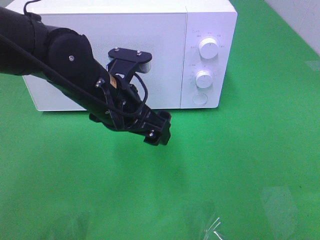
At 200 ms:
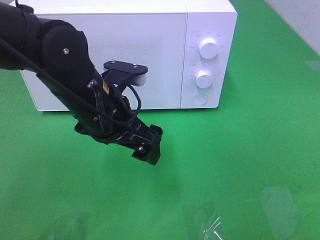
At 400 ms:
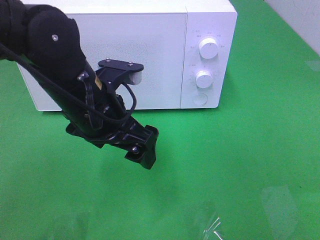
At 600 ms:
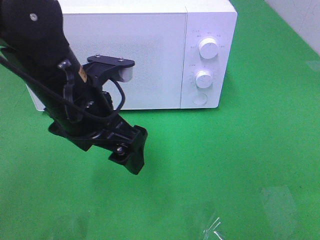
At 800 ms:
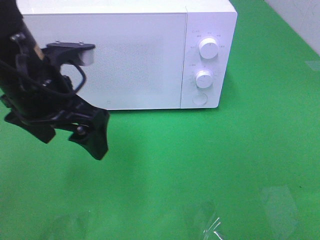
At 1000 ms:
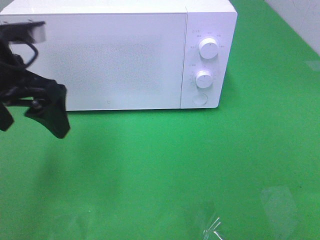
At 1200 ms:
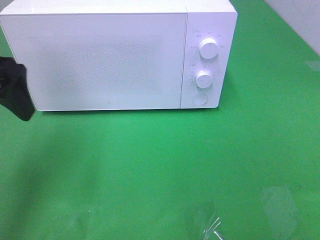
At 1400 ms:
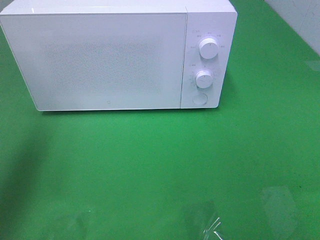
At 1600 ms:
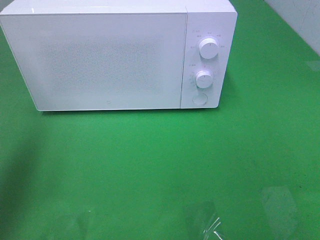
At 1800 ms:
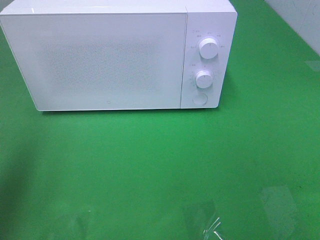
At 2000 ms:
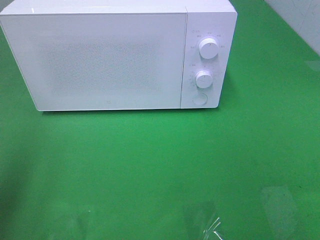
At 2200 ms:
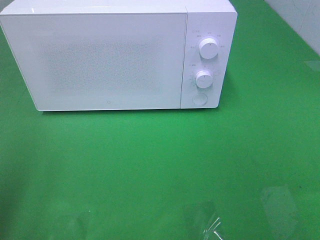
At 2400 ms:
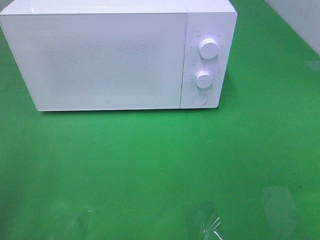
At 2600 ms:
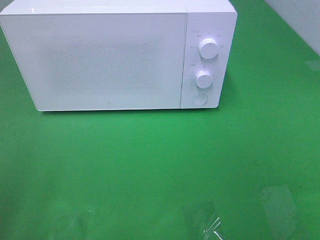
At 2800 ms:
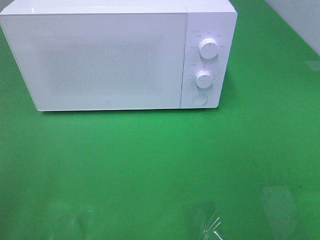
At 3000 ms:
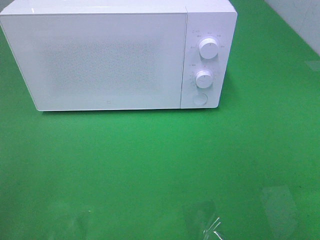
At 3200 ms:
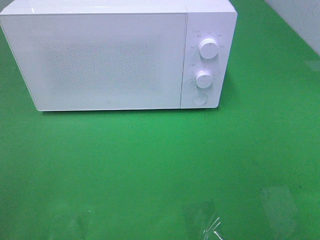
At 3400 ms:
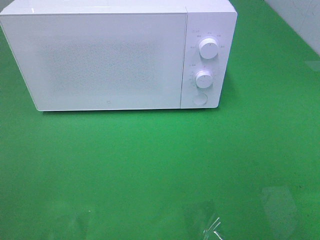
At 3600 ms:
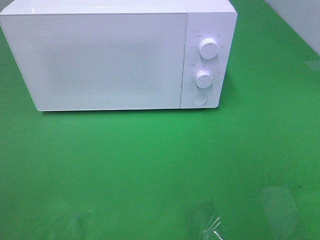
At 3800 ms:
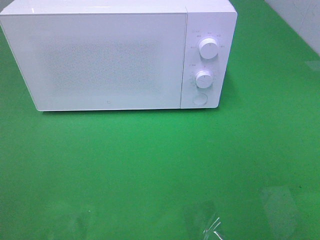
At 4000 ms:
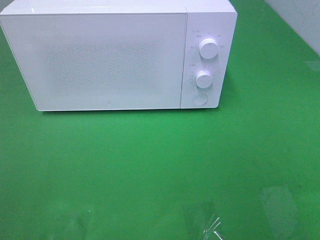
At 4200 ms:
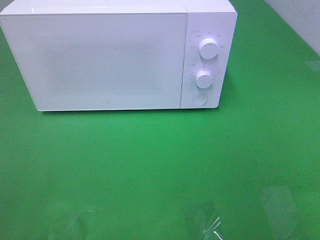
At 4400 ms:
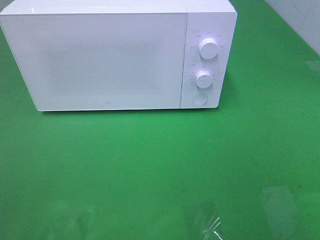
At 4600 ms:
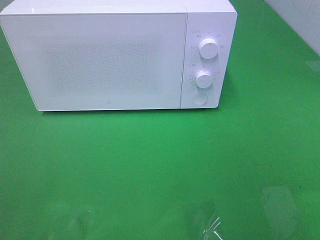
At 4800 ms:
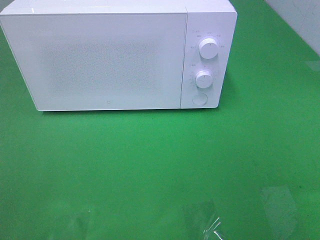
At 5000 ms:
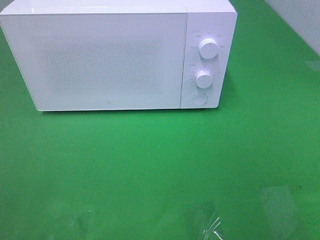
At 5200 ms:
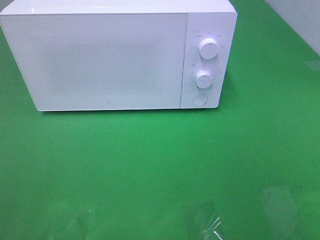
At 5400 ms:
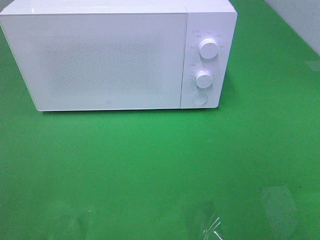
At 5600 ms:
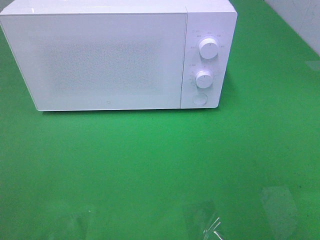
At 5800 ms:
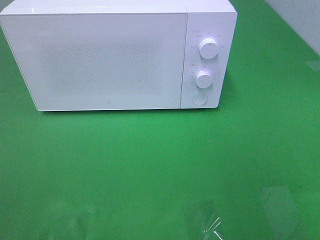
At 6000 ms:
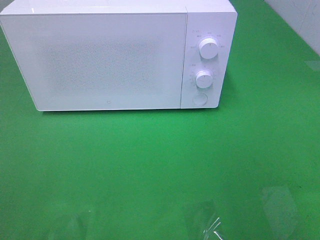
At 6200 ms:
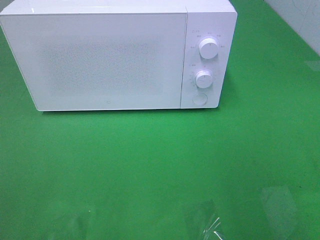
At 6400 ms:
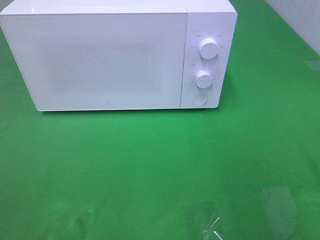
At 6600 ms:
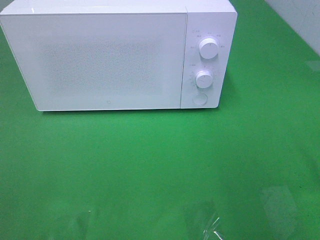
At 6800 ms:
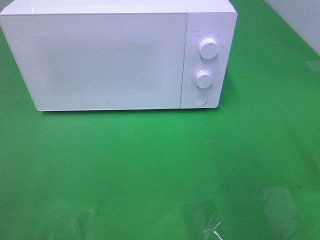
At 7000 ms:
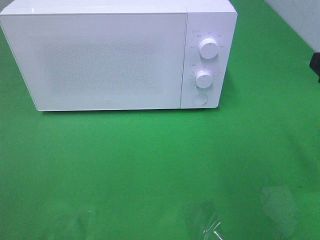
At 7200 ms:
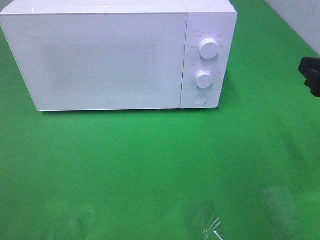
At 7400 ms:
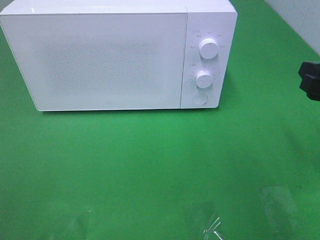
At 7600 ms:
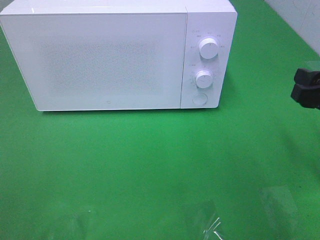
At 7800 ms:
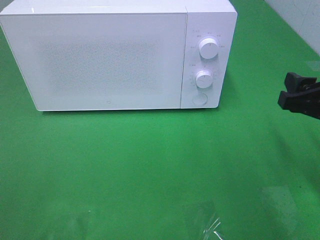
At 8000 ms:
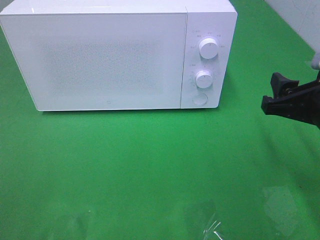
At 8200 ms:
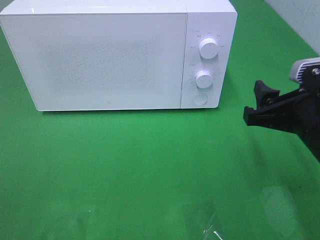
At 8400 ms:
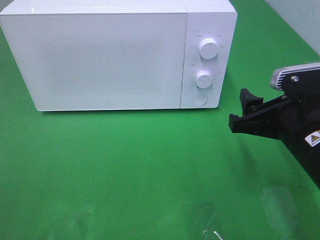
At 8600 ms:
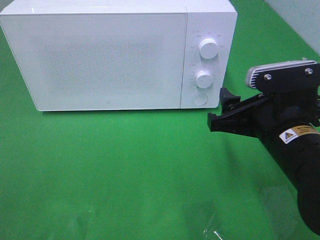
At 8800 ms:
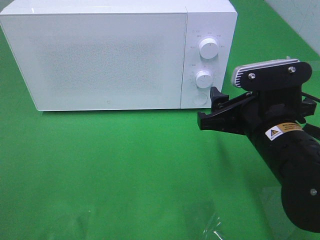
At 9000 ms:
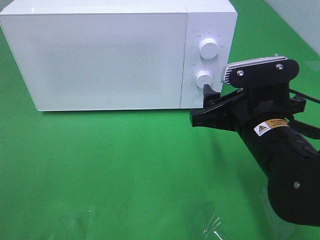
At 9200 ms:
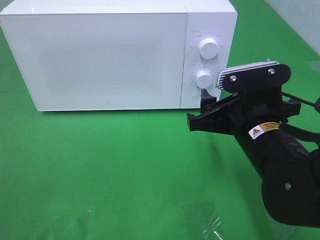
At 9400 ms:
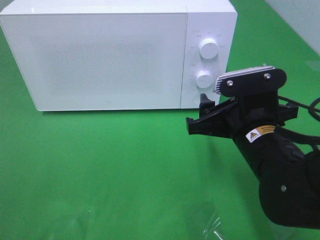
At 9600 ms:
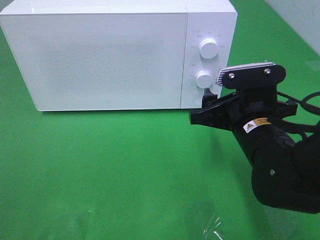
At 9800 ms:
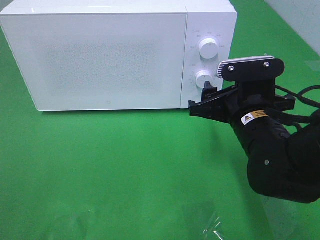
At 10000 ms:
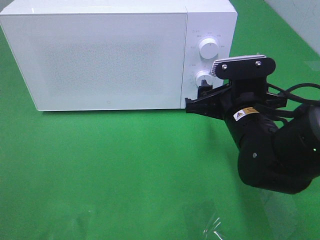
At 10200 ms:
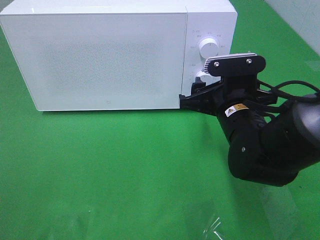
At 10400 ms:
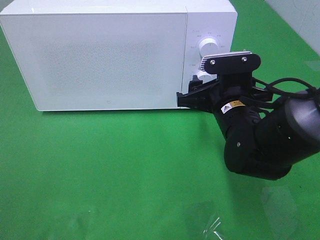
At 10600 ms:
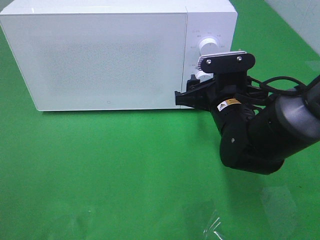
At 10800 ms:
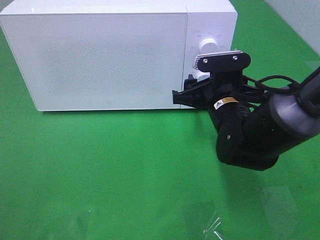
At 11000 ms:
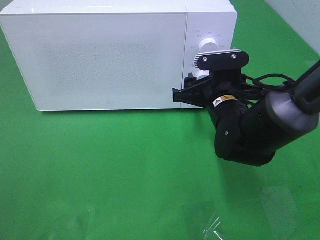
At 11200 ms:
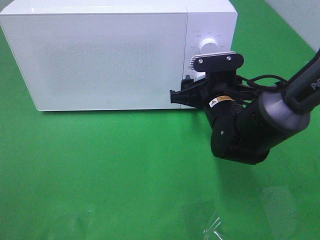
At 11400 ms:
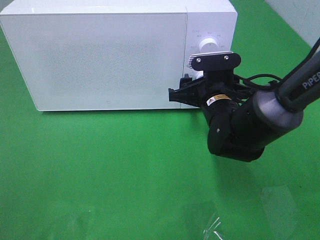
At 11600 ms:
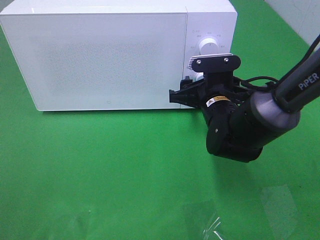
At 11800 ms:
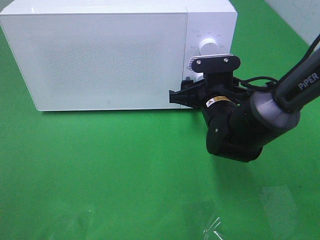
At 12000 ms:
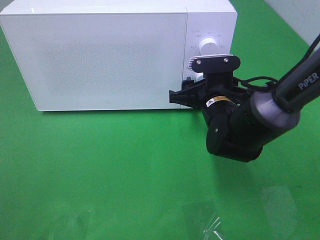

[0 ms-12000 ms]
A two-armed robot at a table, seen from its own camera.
Task of the whole recording: Heat the burger.
0 ms to 1600 ms: The left gripper is displaced to the left and upward by some 30 cm.
1600 ms to 3000 ms: The left gripper goes some 20 cm backward.
6000 ms to 7600 ms: The right gripper heads forward and downward, covering about 15 cm.
7600 ms to 9000 ms: The right gripper moves to the left, about 15 cm.
9000 ms to 10400 ms: The right gripper shifts about 5 cm forward.
10400 ms to 12000 ms: The right gripper changes place by approximately 5 cm.

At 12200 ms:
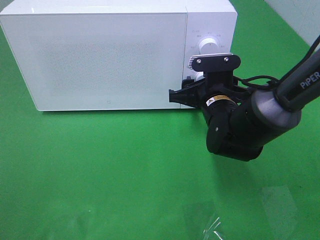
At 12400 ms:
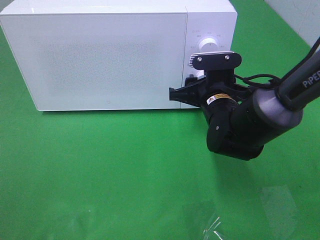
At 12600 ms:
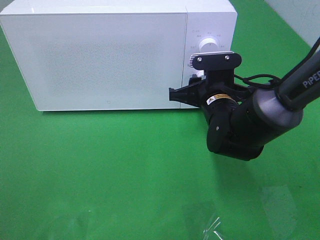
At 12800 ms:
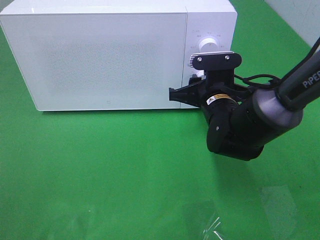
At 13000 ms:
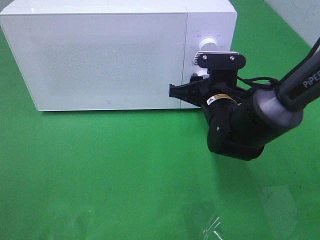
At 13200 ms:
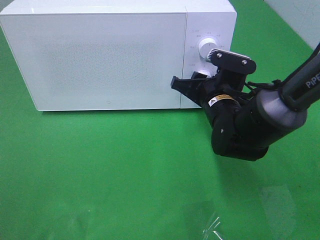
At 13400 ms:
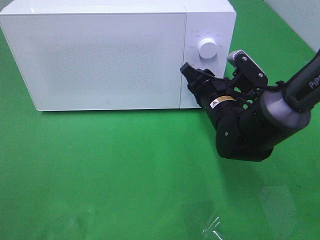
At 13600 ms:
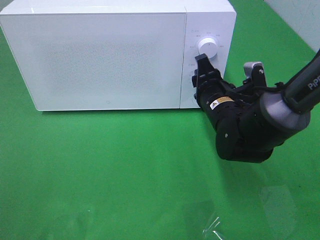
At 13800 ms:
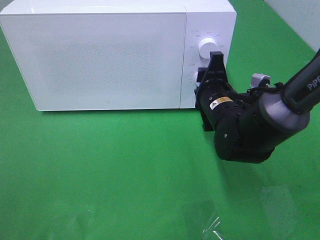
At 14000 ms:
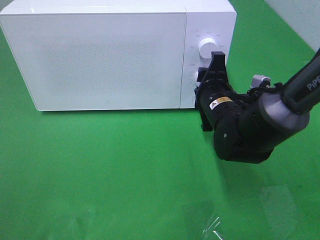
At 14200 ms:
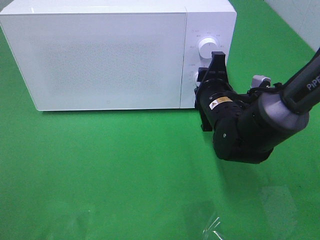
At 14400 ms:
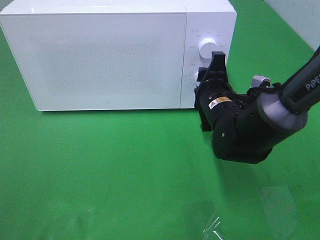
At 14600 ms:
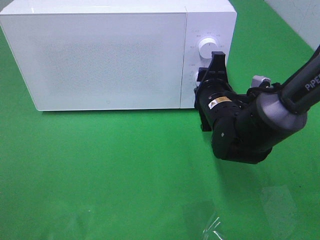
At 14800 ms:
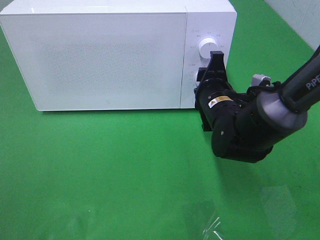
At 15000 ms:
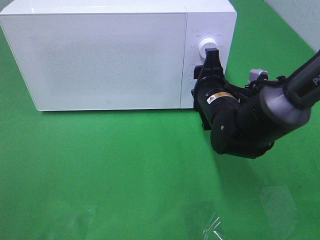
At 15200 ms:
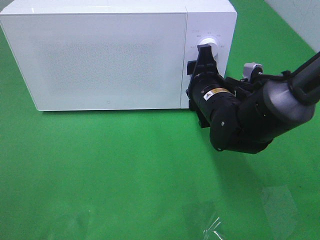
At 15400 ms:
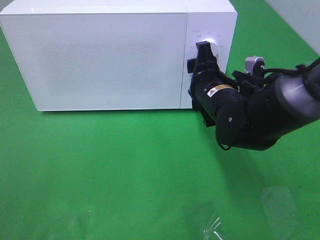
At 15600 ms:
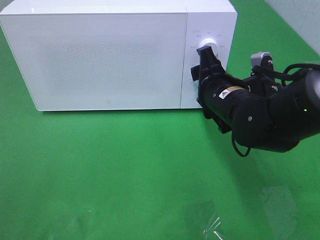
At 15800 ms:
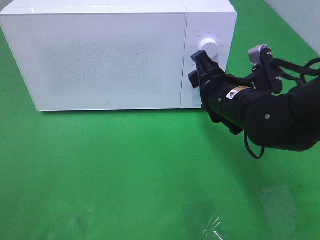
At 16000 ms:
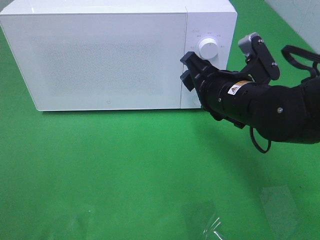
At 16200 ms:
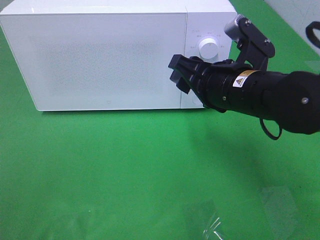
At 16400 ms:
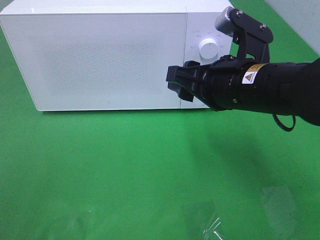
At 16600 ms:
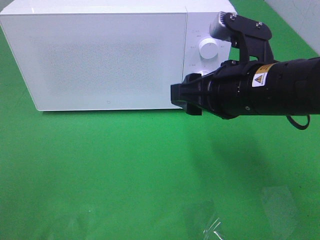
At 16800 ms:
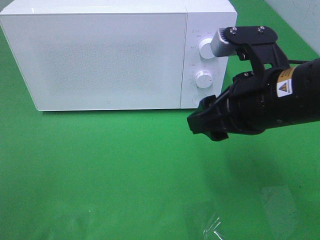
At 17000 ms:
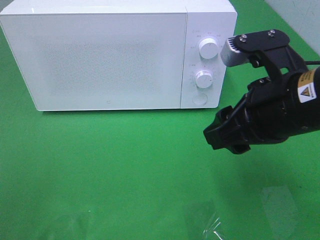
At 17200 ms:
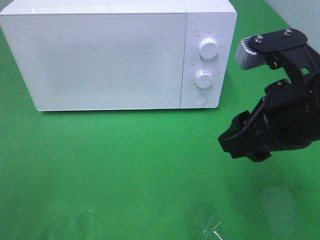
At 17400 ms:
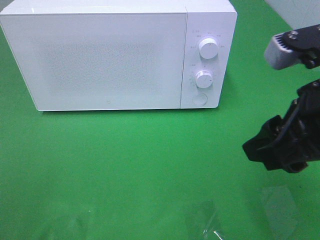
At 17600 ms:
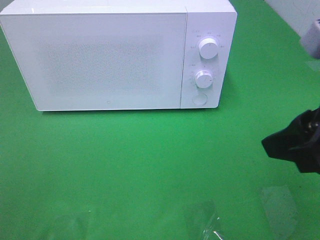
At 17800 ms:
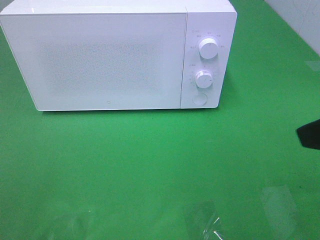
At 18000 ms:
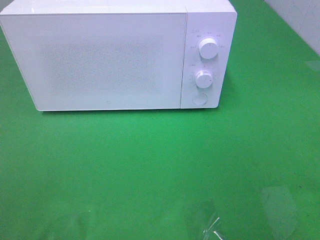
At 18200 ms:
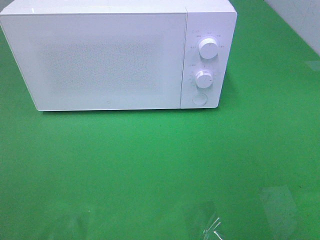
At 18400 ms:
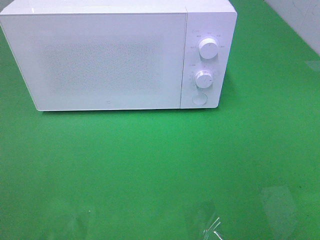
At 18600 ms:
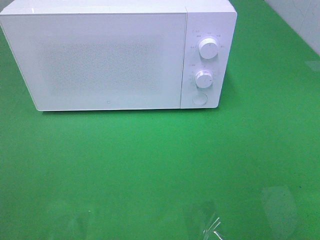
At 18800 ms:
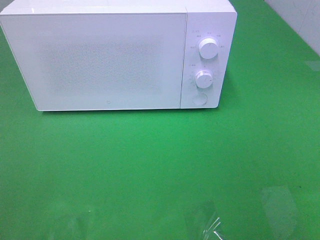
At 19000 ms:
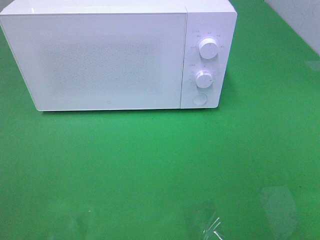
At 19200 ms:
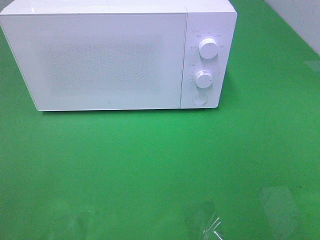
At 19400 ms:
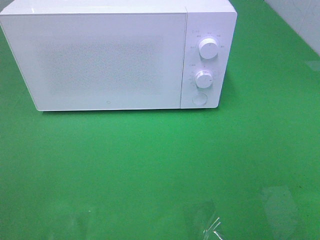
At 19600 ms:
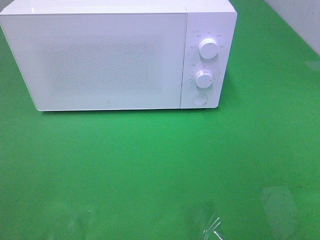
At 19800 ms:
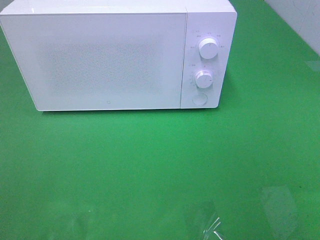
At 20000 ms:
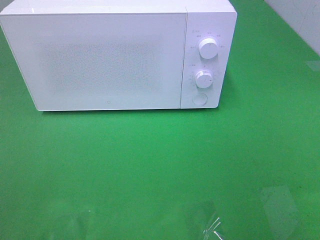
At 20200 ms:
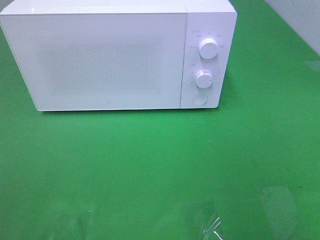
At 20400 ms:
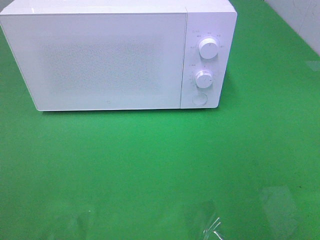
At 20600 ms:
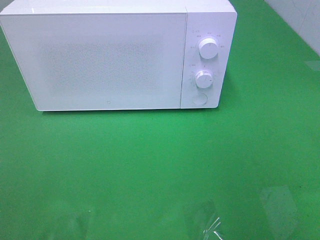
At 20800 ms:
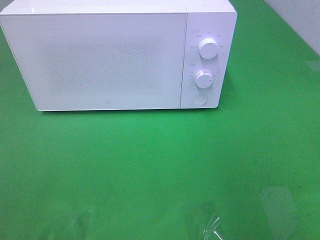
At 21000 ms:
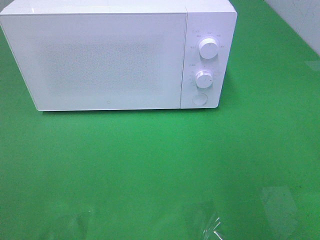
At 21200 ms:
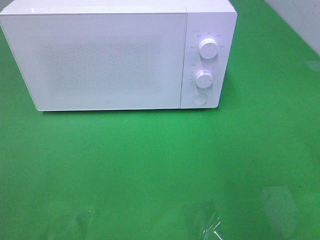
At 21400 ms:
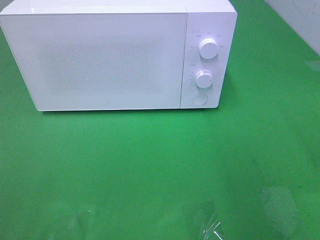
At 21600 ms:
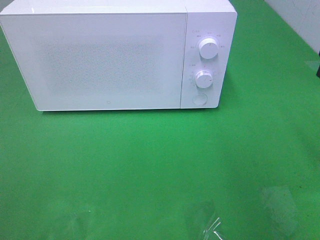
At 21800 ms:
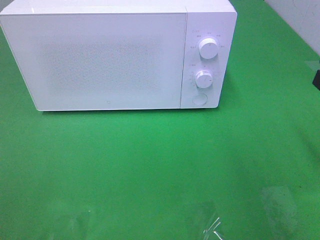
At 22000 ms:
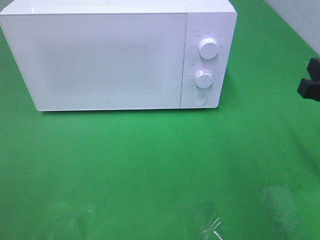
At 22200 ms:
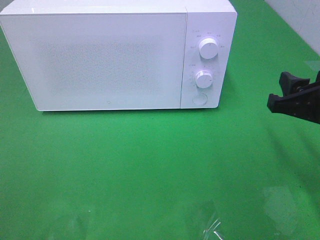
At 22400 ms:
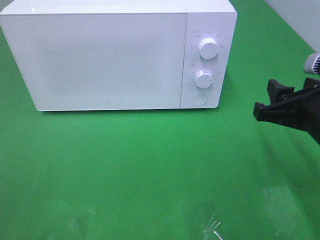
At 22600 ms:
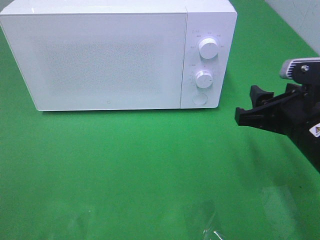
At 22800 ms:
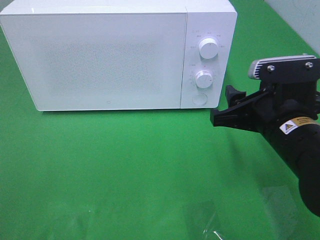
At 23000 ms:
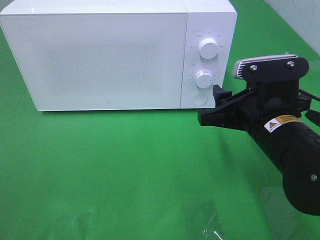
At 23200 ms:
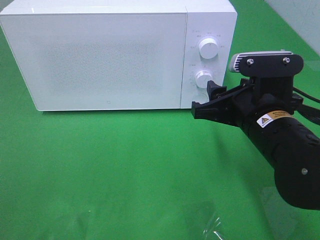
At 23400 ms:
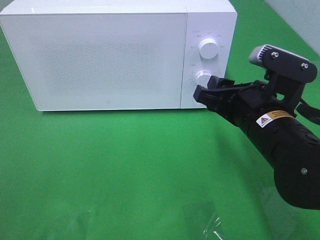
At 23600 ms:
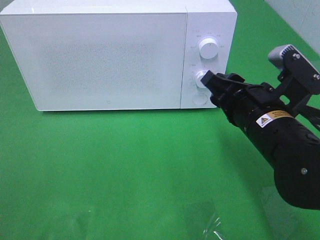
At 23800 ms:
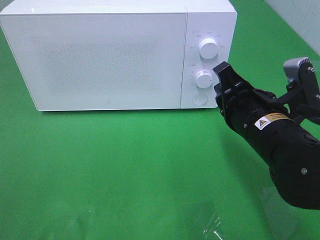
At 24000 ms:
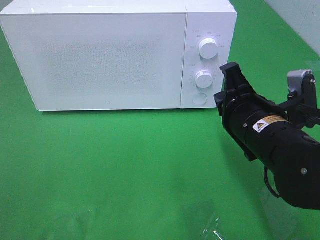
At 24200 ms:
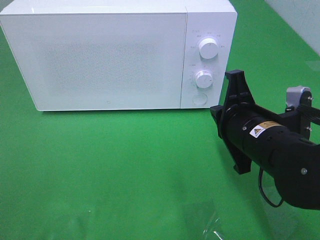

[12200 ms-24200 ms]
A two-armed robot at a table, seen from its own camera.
Task of the whole recording: Heat the burger.
Step, 12200 ms to 15200 ms: Right hand: twist timer button.
13800 ms to 15200 ms: The grippers make only small movements.
15200 ms to 16600 ms: The right gripper shifts approximately 15 cm backward and upward.
16600 ms to 18200 ms: The right gripper moves to the right, backward and upward, approximately 25 cm.
21200 ms to 22600 ms: The right gripper travels downward and to the left by about 15 cm.
22600 ms to 24200 ms: The right gripper shifts roughly 5 cm to the left, and closes its fingers.
